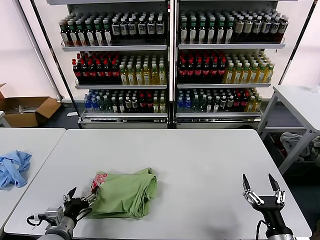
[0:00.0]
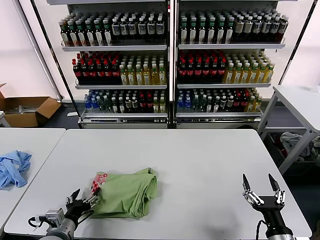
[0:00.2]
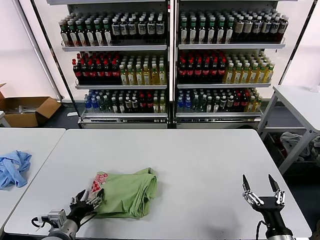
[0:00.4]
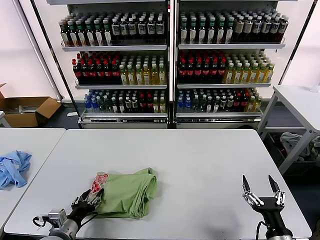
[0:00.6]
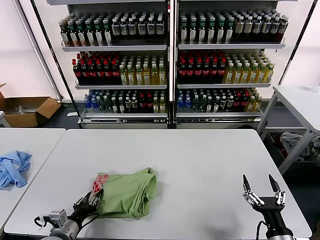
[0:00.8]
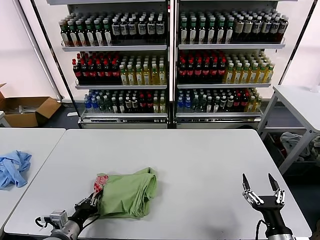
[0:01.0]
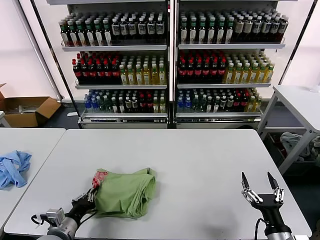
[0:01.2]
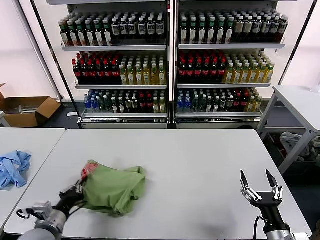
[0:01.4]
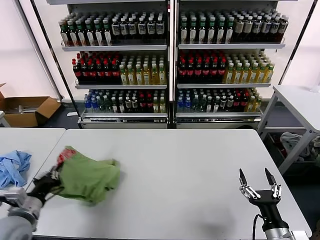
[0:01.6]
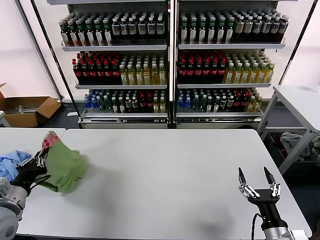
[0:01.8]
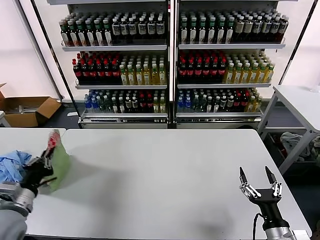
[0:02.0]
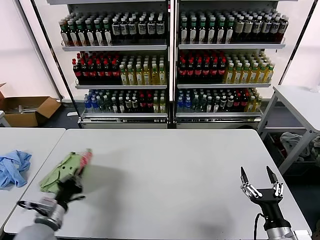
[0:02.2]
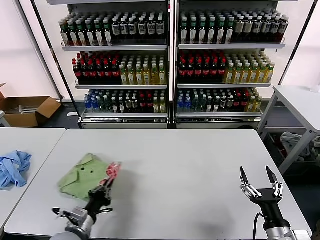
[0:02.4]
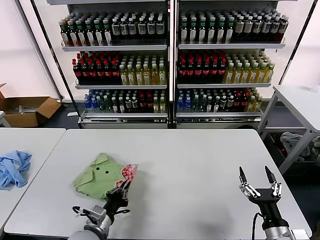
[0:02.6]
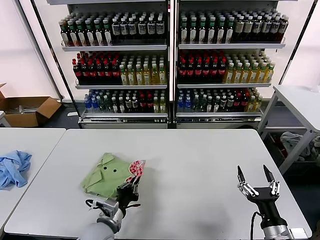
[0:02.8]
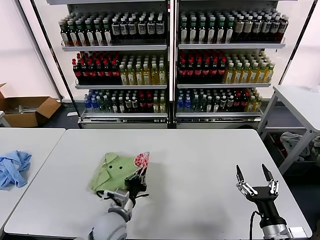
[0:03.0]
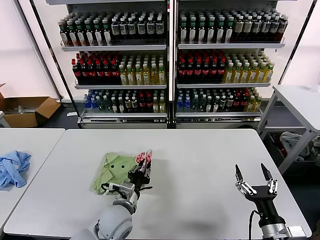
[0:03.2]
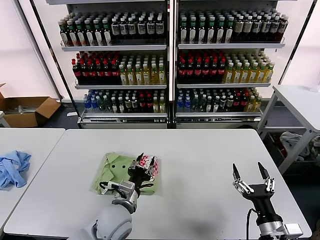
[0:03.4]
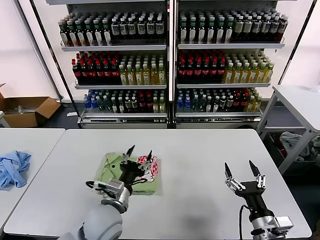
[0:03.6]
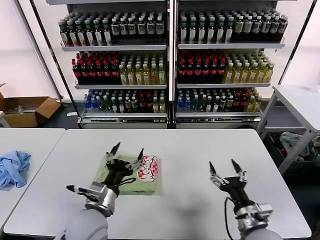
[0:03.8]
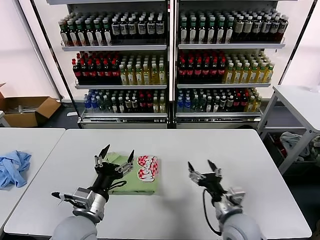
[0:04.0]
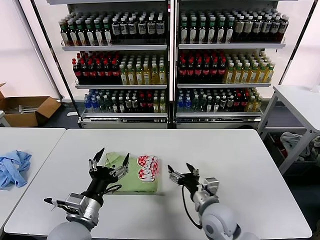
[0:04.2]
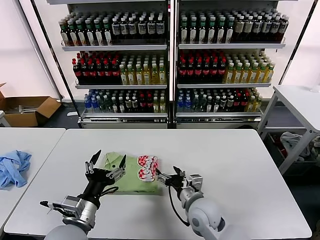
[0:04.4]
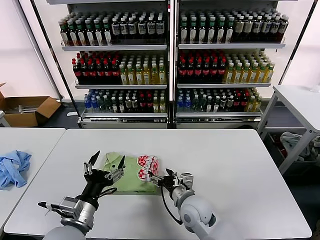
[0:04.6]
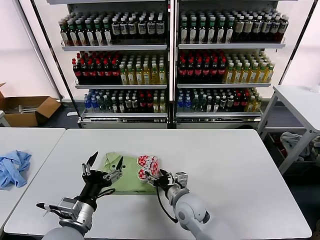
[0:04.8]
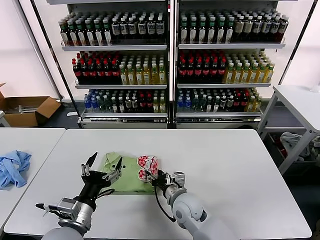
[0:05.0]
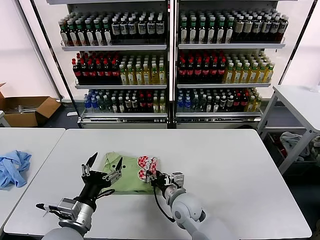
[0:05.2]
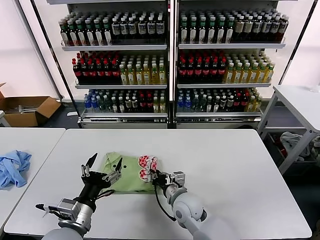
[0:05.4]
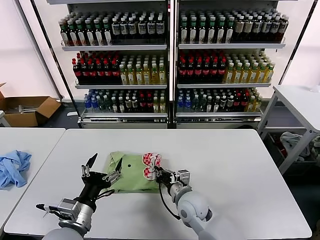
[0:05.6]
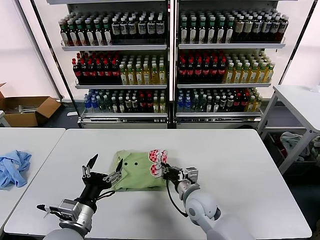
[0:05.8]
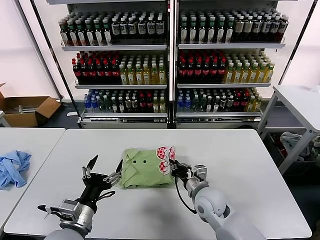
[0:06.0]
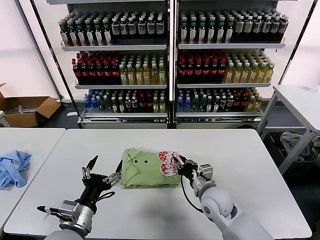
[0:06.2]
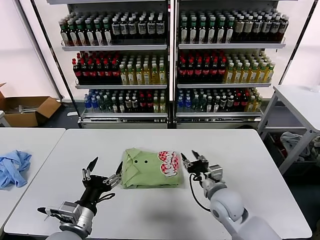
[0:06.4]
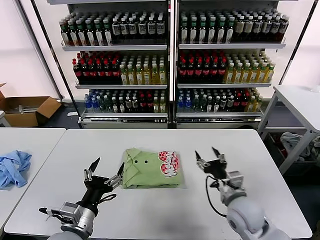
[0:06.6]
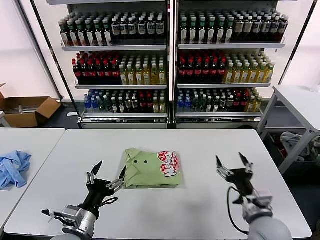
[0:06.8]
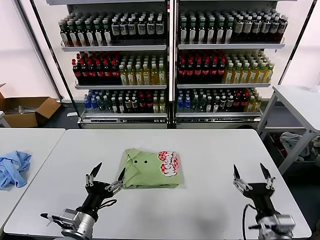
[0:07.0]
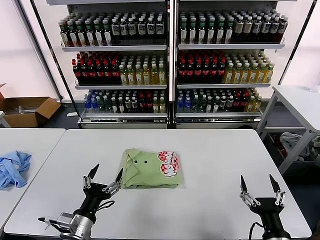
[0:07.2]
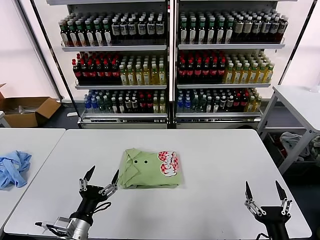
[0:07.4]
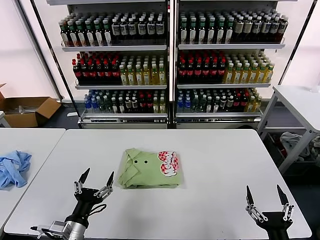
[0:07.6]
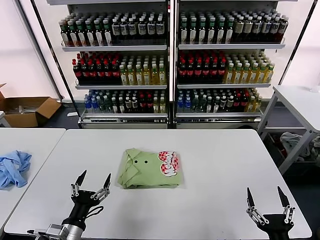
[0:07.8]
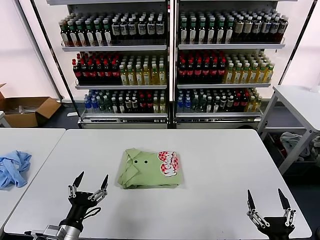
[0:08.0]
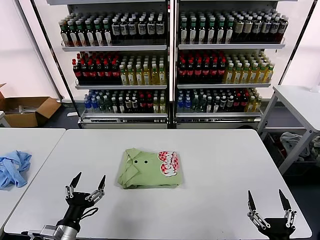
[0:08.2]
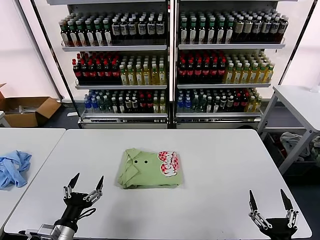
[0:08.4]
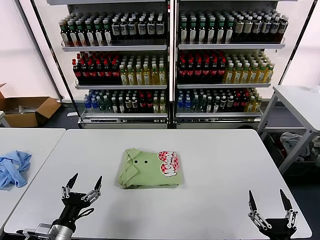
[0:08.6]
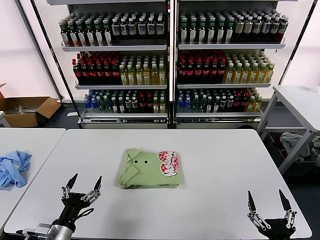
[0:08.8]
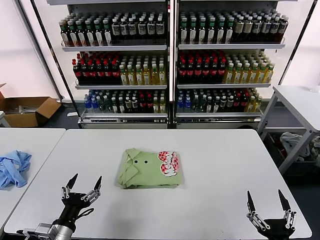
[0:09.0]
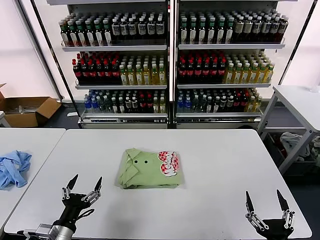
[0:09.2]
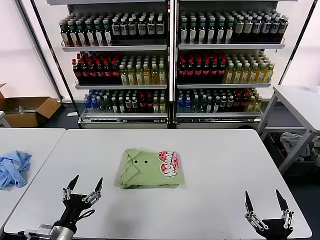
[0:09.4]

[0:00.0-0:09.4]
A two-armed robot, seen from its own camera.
Task of the whole recording: fold and organize the clothes.
Step, 0:00.0 to 0:03.2: Flip the folded clothes over with left gripper.
Step, 0:03.4 to 0:06.2: Drag the clothes to the center of the table.
0:00.0 to 0:01.6: The left gripper goes approximately 10 cm to the left and upward, and closes its fingers.
0:01.6 to 0:03.2: The left gripper shifts about 25 cm to the right.
0:03.2 to 0:04.8: The right gripper heads to the left and forward, covering roughly 30 cm, while the left gripper shifts approximately 15 cm upward, to the left and backward, and opens.
0:04.8 to 0:06.2: The right gripper moves to the right, roughly 10 cm, and closes up.
0:06.2 to 0:07.8: The right gripper travels backward and to the right by some 30 cm, and opens its fingers. The left gripper goes roughly 5 cm downward.
0:07.8 to 0:09.4: The grippers stay close to where they were, moving slightly.

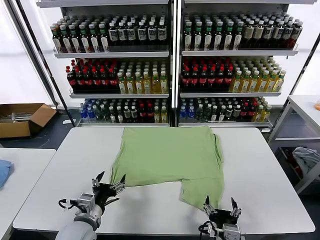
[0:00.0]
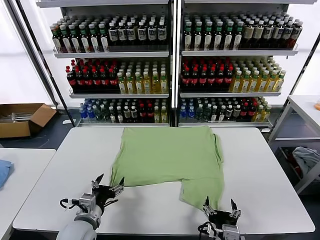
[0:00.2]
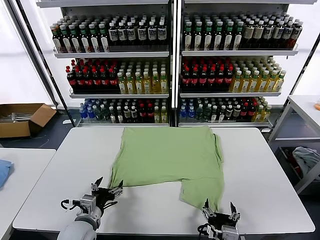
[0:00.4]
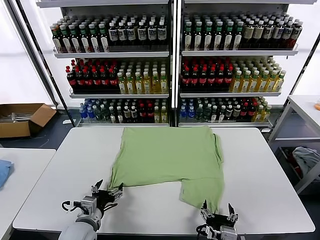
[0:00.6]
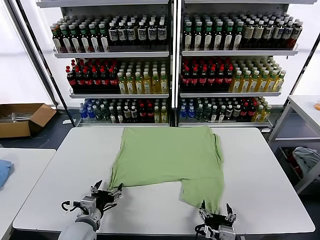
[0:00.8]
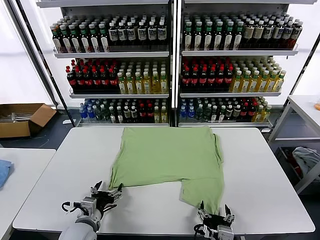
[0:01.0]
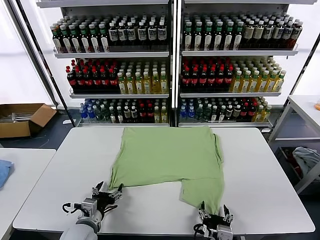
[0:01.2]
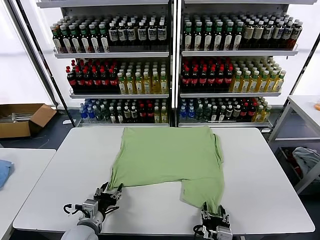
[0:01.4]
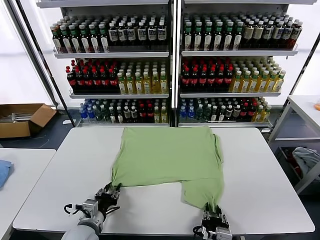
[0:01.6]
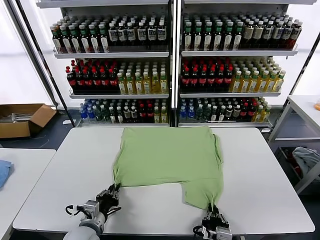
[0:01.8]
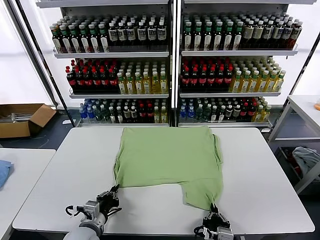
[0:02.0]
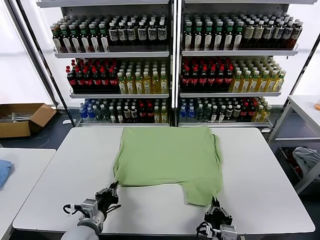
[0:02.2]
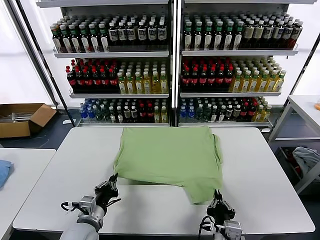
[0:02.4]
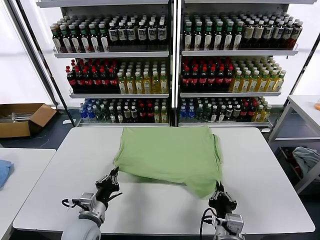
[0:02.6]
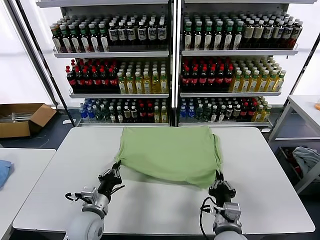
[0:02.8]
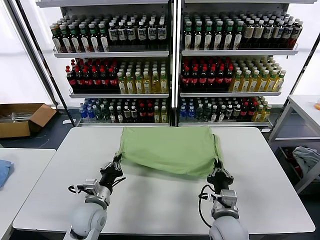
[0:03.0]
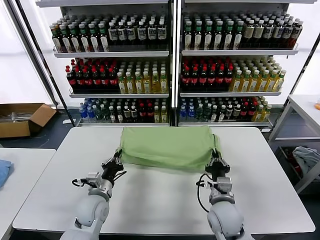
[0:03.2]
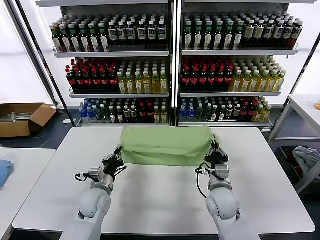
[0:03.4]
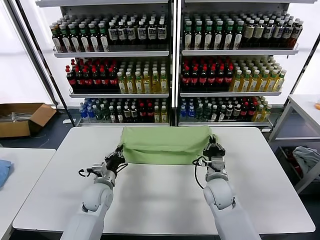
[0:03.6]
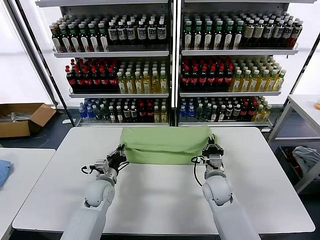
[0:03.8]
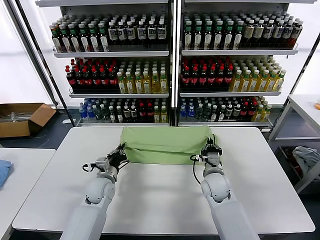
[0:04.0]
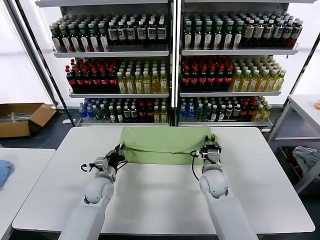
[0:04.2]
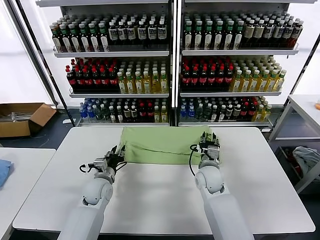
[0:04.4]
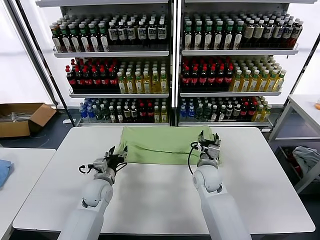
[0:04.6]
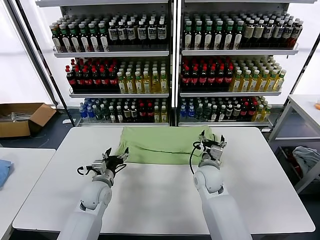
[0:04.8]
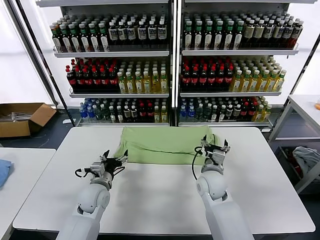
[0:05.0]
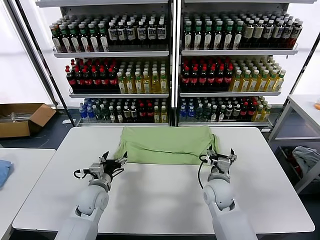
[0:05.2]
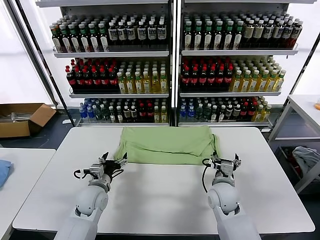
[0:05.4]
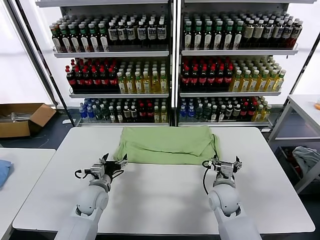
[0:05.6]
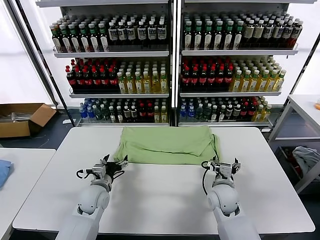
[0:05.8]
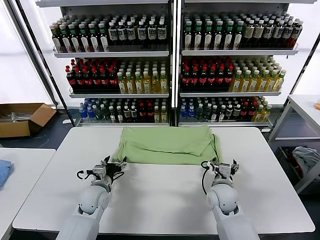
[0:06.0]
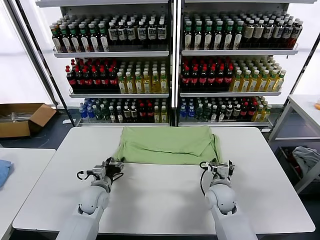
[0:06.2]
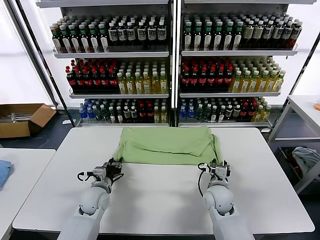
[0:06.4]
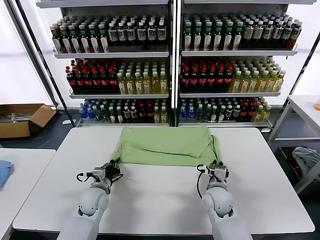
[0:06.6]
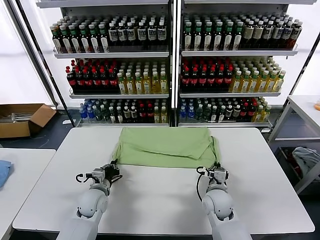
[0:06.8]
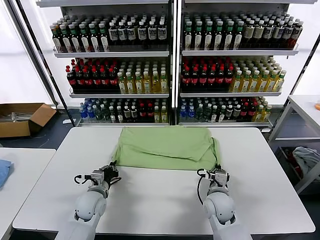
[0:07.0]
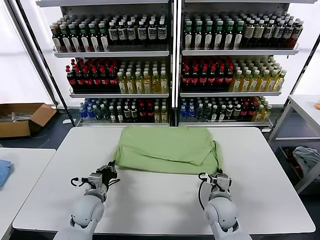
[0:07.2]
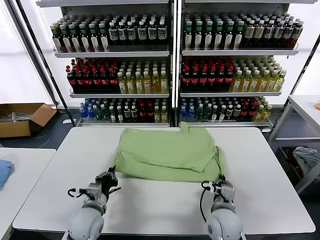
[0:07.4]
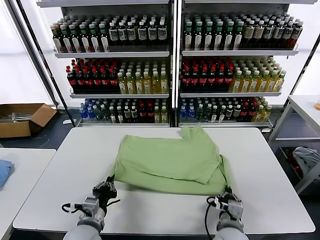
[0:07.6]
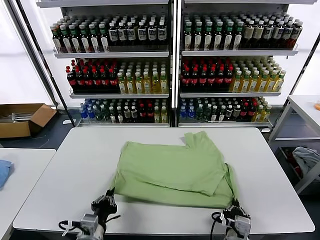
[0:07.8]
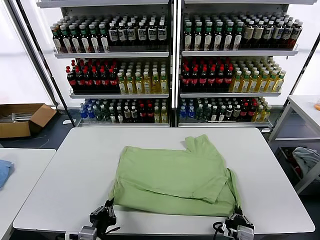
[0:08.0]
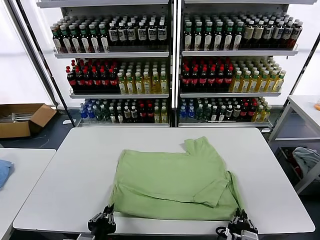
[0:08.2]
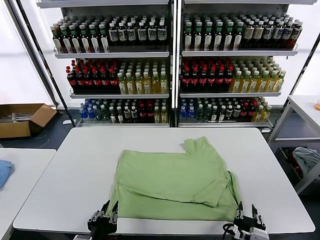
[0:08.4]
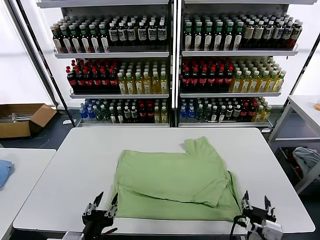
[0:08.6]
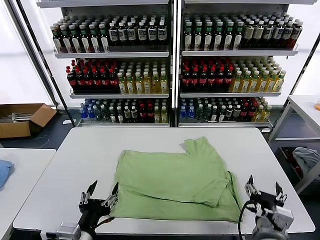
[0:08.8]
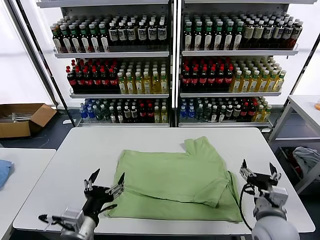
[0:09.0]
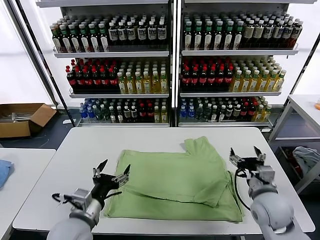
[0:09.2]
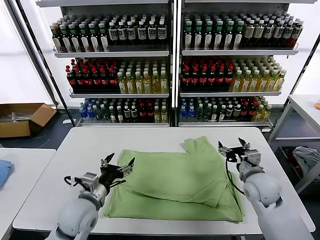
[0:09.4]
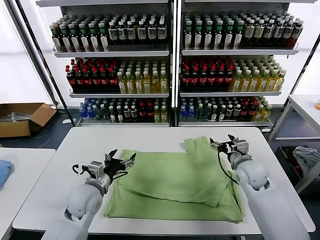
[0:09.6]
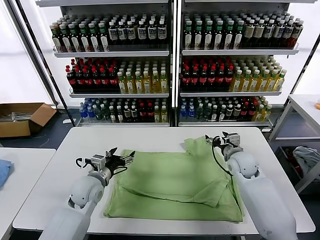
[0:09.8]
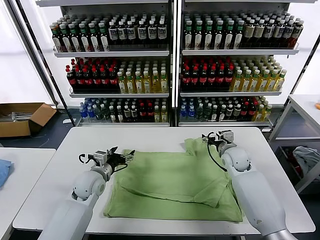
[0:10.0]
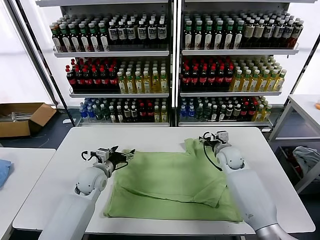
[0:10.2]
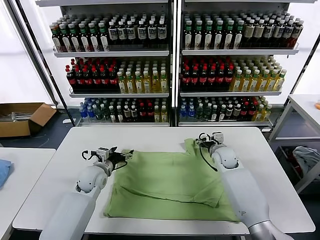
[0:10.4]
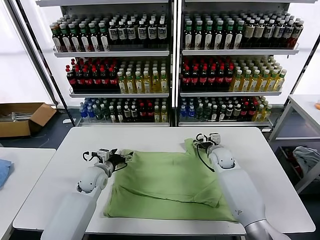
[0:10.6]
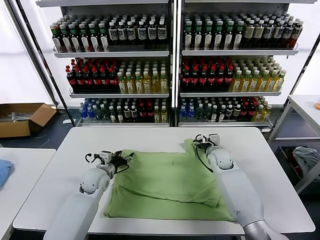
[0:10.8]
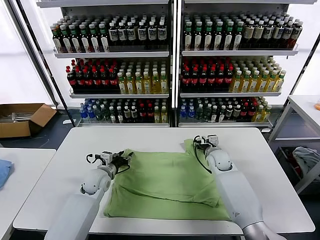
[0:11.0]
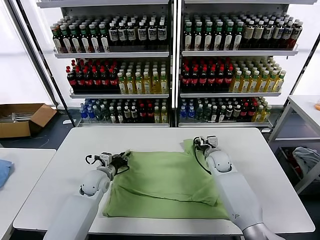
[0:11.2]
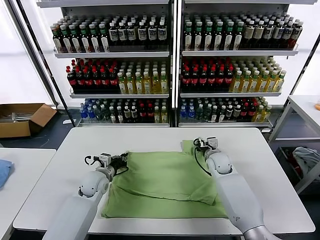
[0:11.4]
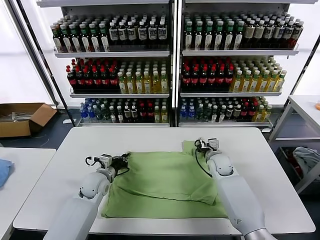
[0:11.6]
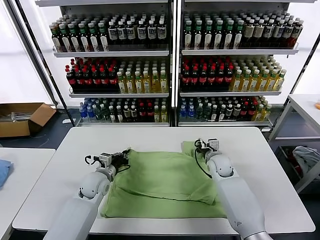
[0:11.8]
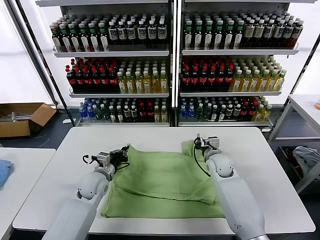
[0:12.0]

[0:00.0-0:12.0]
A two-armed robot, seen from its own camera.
Task of the whole recording: fold and organize the clothes.
Step, 0:00.0 to 0:02.0: use both grippers simultaneously to clamp the lower edge of the clothing fabric.
Step, 0:02.2 to 0:04.4: use both grippers to drag the lower edge of the fabric forward and fold it over the upper edge.
Step, 0:04.6 to 0:08.4: Drag the clothes downward with both gripper.
Step, 0:08.6 to 0:11.4: use both grippers simultaneously to clamp the upper edge of the clothing fabric.
0:01.6 to 0:03.0: The right gripper goes roughly 15 cm forward. The left gripper heads forward, covering roughly 5 cm, and closes its fingers.
0:03.0 to 0:04.4: The two grippers go about 10 cm forward. The left gripper opens up; the right gripper opens its fingers.
0:04.4 to 0:06.0: The right gripper goes about 5 cm backward; the left gripper opens up.
0:06.0 to 0:07.6: The grippers both shift backward by approximately 15 cm. The left gripper closes. Meanwhile the right gripper closes.
0:07.6 to 0:09.0: The right gripper travels to the right, upward and forward by approximately 15 cm, and opens up, while the left gripper shifts roughly 10 cm upward and backward, and opens up.
0:09.0 to 0:10.4: The two grippers go roughly 25 cm forward.
0:10.4 to 0:12.0: The left gripper closes up. The right gripper changes place by some 5 cm, and closes up.
